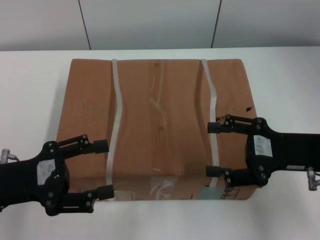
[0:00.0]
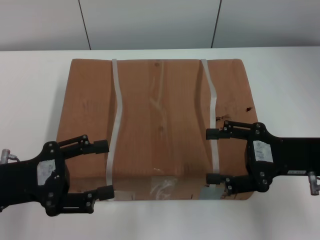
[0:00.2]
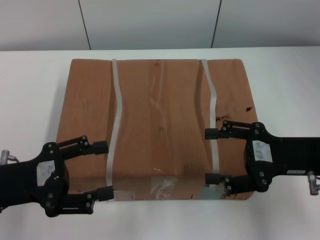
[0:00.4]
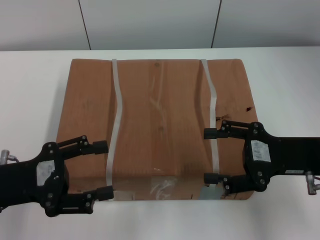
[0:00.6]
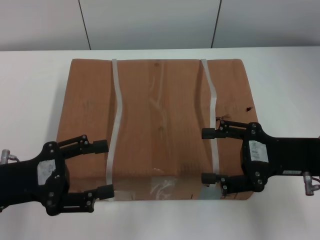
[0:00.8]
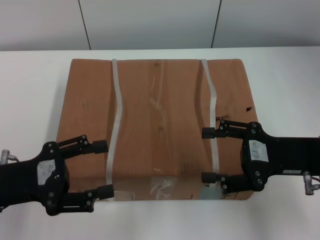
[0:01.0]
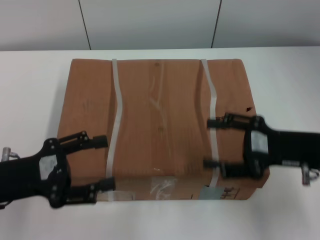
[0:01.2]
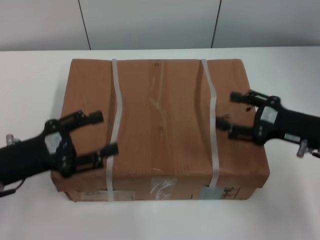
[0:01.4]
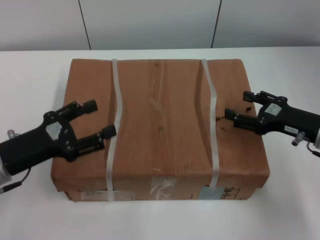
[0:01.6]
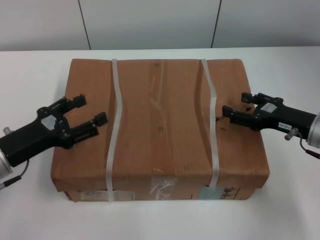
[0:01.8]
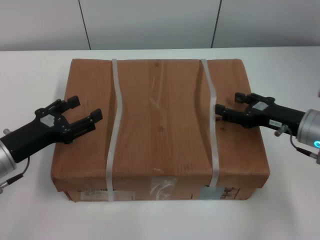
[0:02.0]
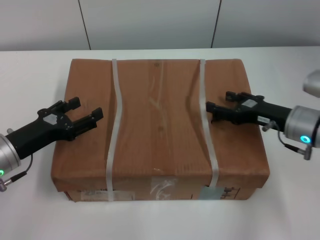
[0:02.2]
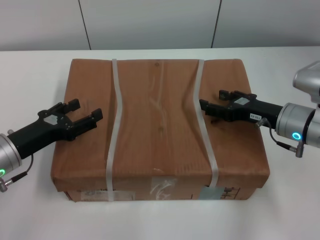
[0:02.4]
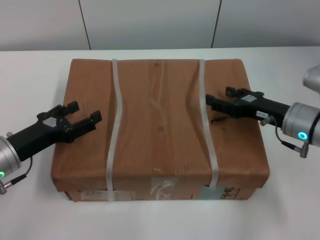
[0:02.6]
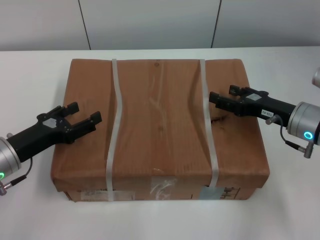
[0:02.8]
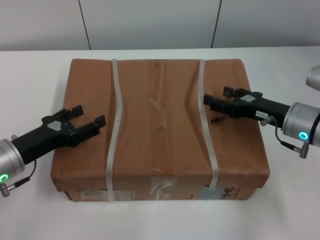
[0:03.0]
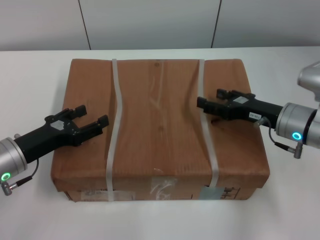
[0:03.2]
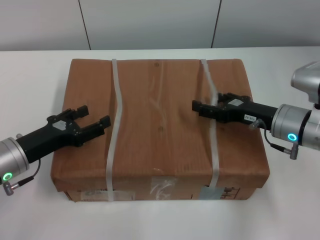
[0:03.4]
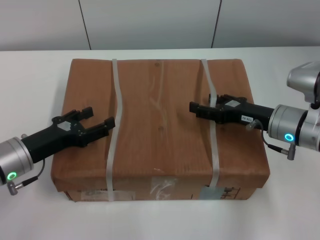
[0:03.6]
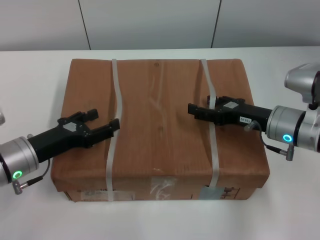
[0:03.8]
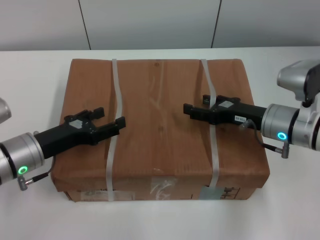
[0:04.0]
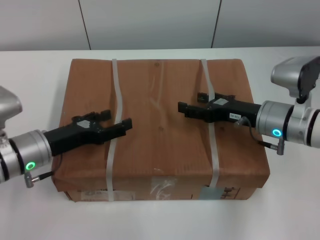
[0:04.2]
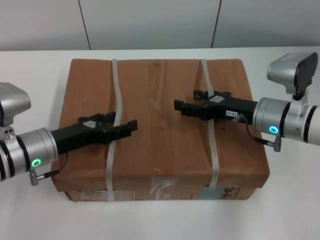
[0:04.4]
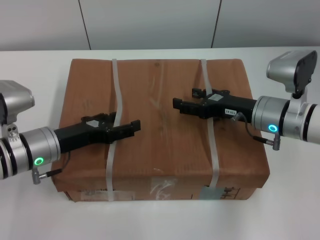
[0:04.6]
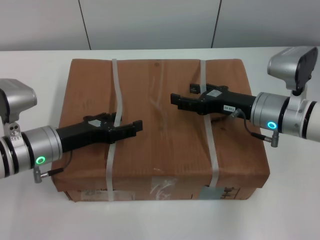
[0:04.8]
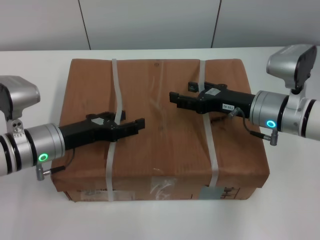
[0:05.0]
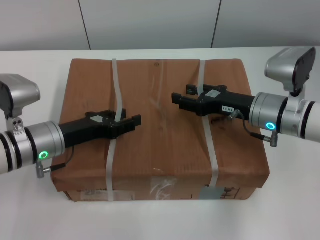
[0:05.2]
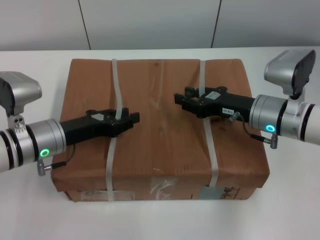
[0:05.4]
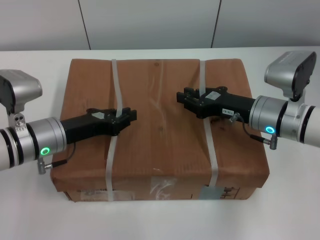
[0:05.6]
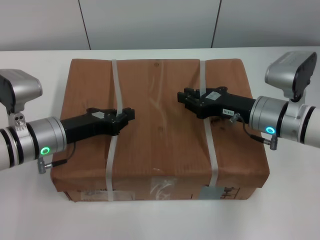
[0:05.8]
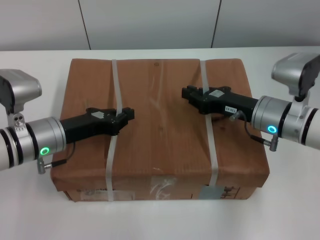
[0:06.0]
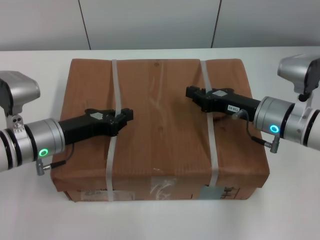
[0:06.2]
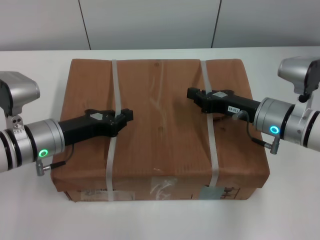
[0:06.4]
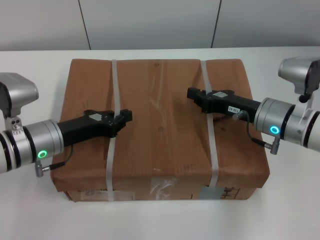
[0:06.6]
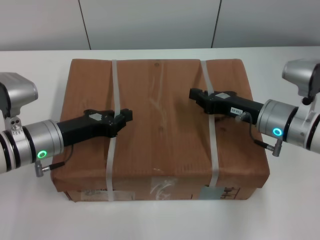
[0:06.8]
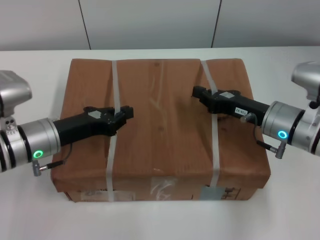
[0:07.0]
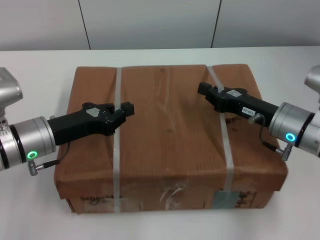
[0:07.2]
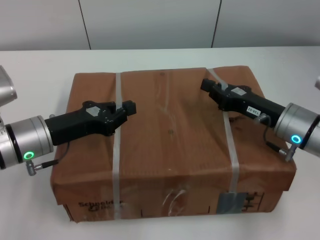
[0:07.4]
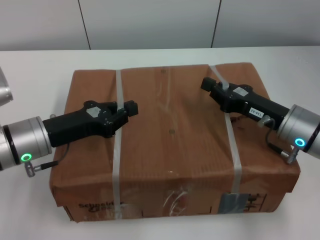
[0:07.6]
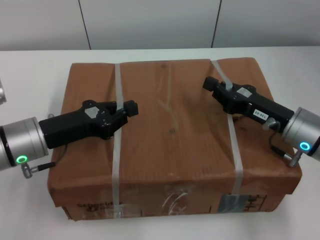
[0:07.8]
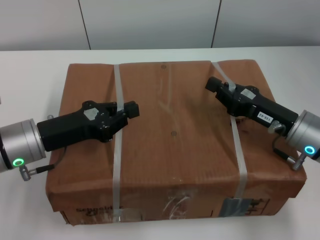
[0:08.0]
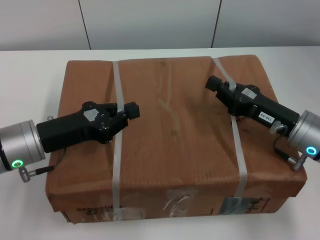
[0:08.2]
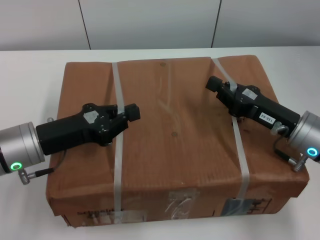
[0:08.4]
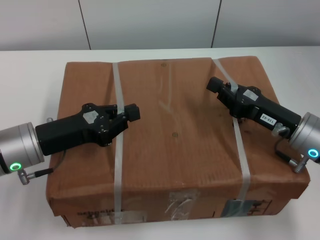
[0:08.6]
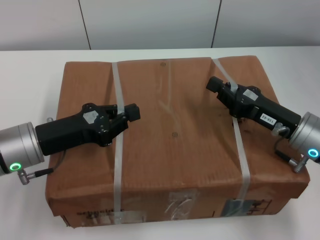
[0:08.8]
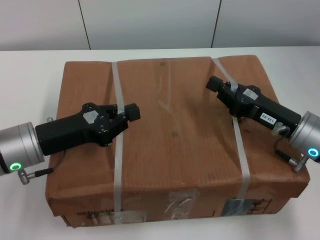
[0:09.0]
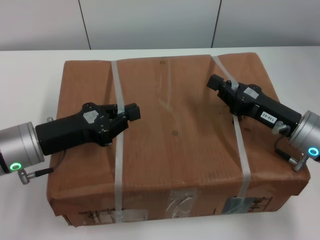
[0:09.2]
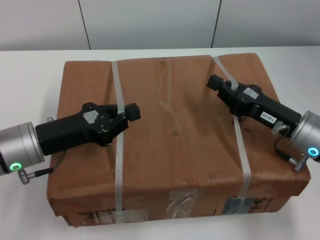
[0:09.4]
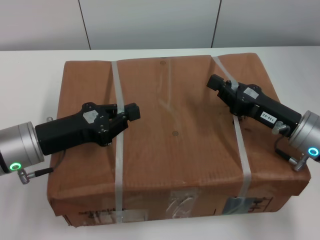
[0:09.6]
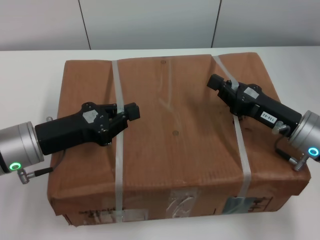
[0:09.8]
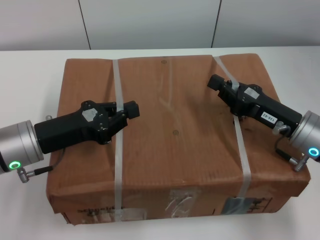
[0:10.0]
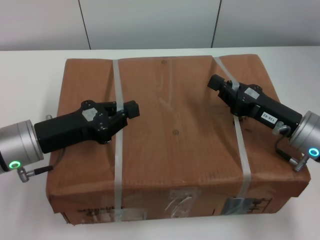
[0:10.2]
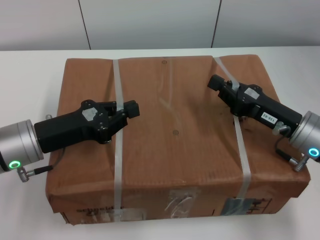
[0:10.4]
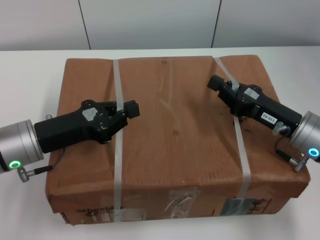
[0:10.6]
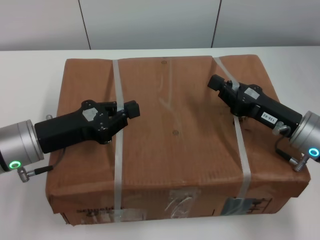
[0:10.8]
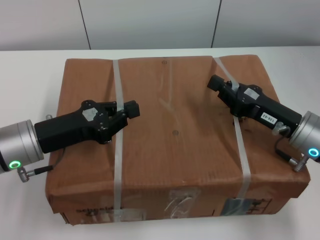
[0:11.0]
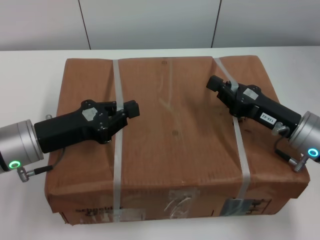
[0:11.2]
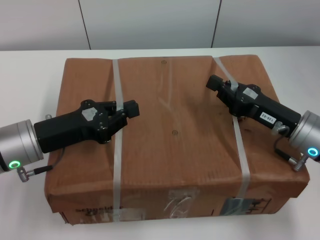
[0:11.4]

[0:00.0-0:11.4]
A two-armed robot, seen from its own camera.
Task of the whole recording: pick up the box from the table with both arms.
Step, 0:00.0 to 0:06.4: Grasp the bandage with left gripper.
Step, 0:00.0 to 0:06.4: Grasp the bandage with right gripper.
Step, 0:06.6 to 0:08.2: Lift the box with left gripper.
Step, 0:06.6 to 0:08.2: Lift the box with right gripper.
0:01.4 to 0:02.8: The right gripper shifts by about 5 cm; the left gripper moves roughly 5 cm.
0:02.8 to 0:04.2: There are only small adjustments of the grippers.
0:04.2 to 0:05.6: The right gripper closes. The left gripper closes.
0:05.6 to 0:07.2: The right gripper closes its fingers.
0:08.6 to 0:11.4: Neither gripper changes place.
